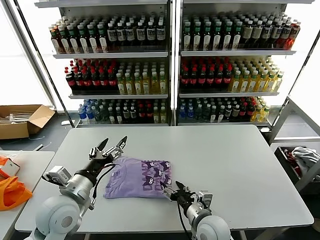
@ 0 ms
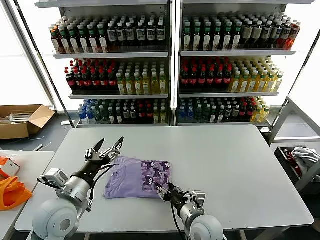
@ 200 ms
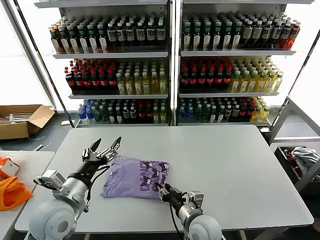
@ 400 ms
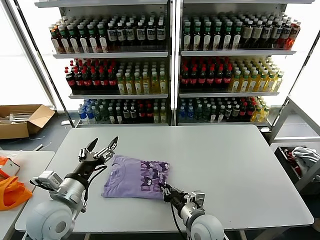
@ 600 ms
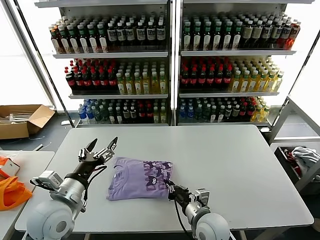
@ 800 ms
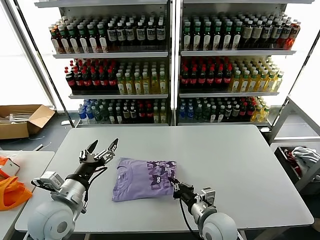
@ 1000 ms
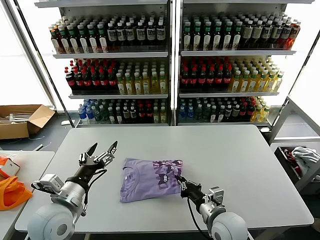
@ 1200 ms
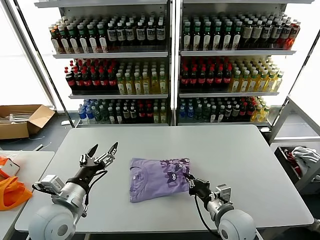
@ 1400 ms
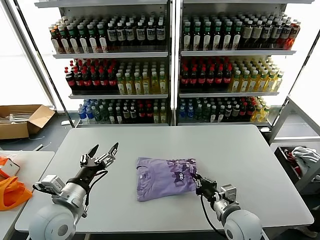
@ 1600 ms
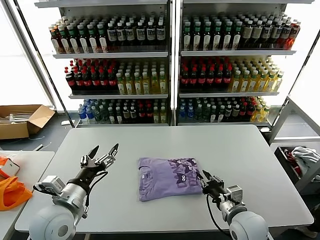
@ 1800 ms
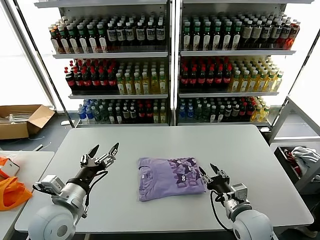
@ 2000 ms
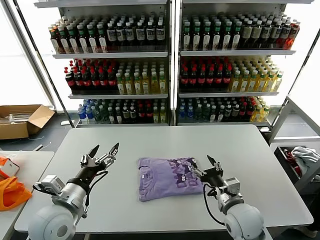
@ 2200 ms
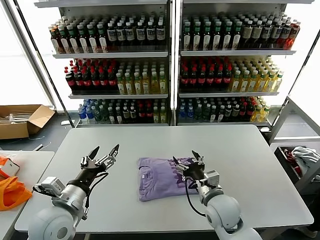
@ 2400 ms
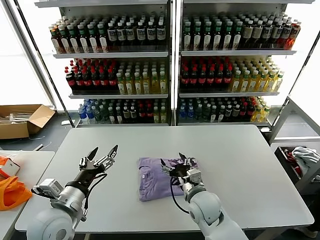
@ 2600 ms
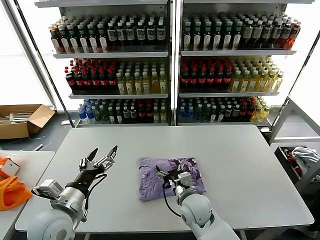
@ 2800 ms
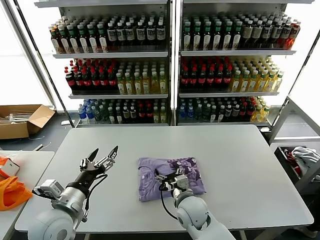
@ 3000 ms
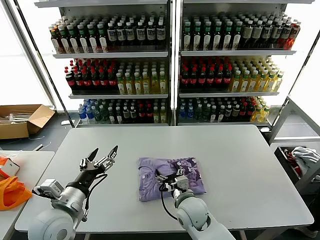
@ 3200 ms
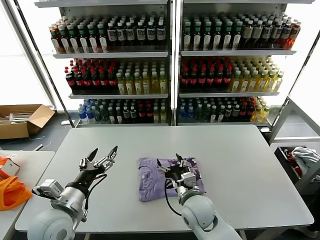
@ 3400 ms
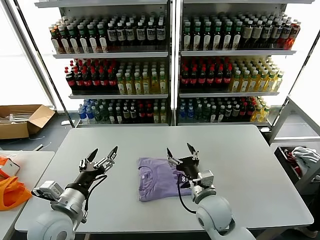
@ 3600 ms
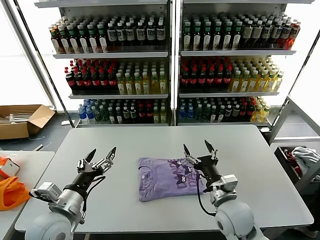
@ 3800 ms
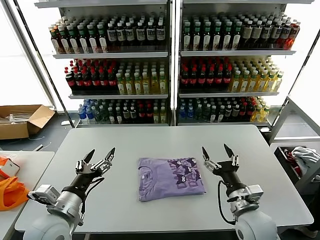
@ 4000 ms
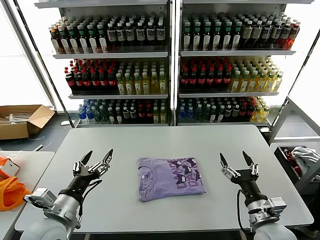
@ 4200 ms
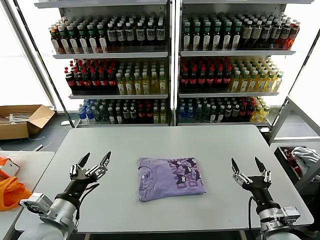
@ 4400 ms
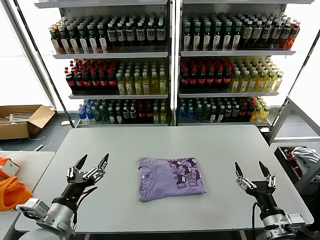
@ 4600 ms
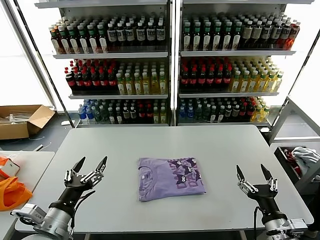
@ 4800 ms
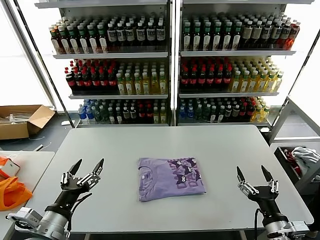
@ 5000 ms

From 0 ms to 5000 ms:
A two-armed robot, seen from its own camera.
Task of the whole recording: fold and organize the clothes.
Step, from 0 ms to 2000 ms: Drag the clothes to the center of the table.
From 0 ms to 1600 ms: The right gripper travels to the right by some 5 cm, and closes.
From 1600 ms to 3400 ms: The right gripper heads to the left and forward, covering some 15 cm, and opens.
From 3400 ms to 5000 ms: The left gripper moves backward, roughly 5 cm. The right gripper travels to the right and backward by approximately 25 cm.
